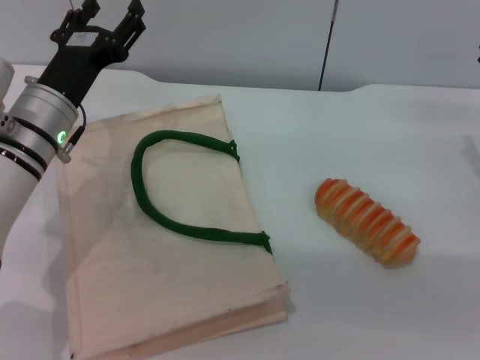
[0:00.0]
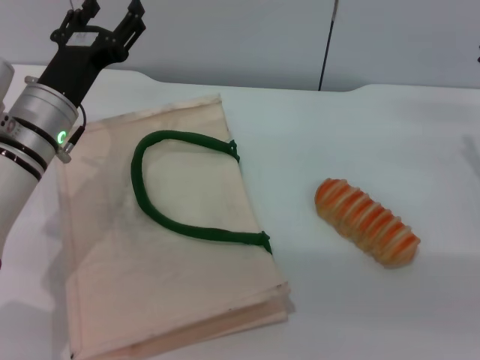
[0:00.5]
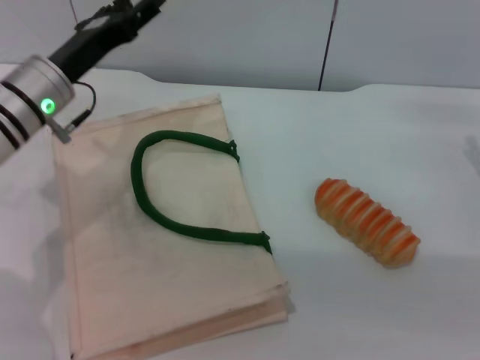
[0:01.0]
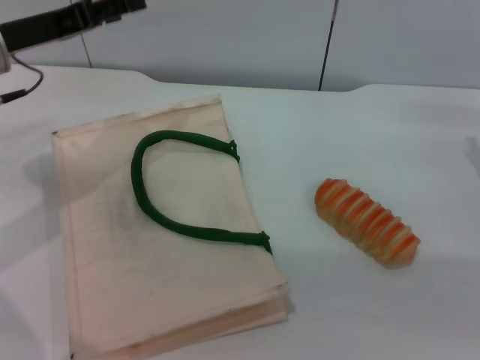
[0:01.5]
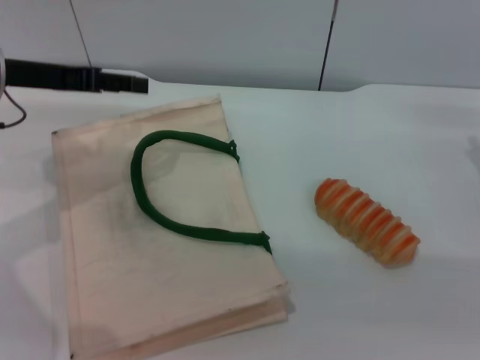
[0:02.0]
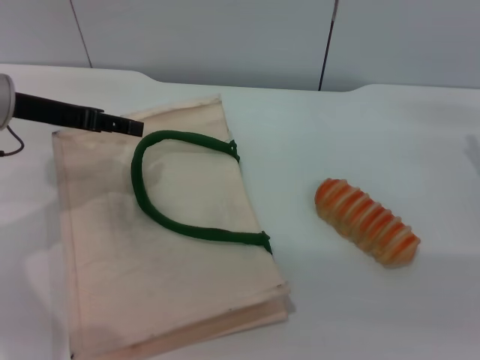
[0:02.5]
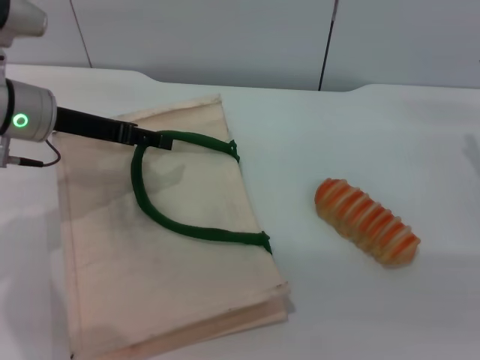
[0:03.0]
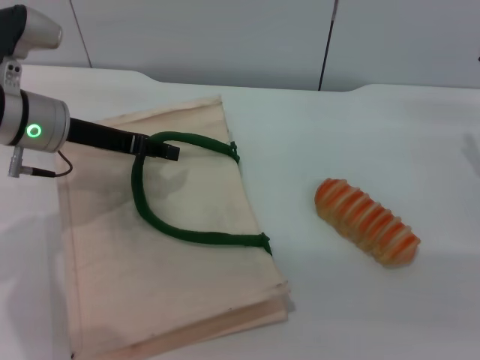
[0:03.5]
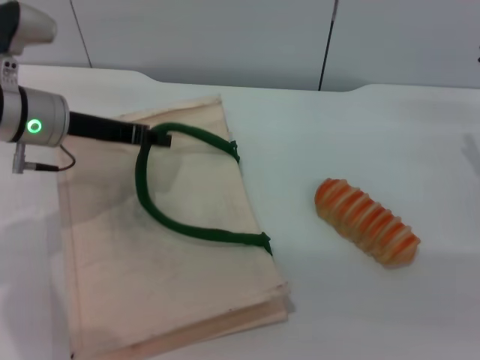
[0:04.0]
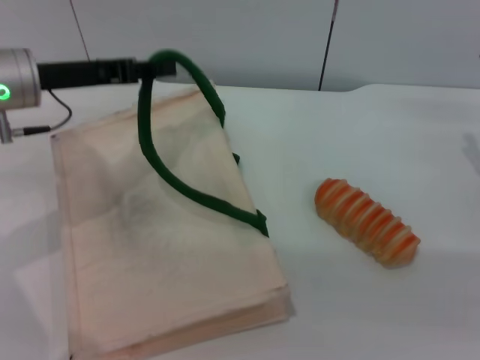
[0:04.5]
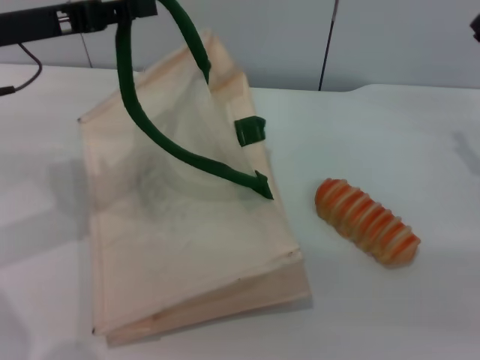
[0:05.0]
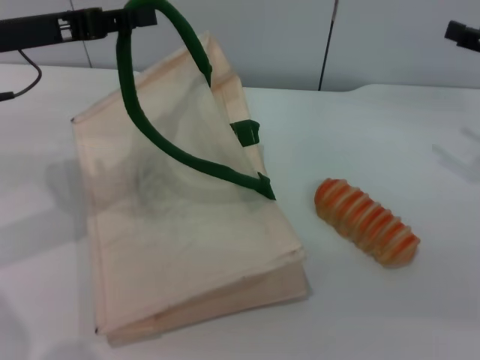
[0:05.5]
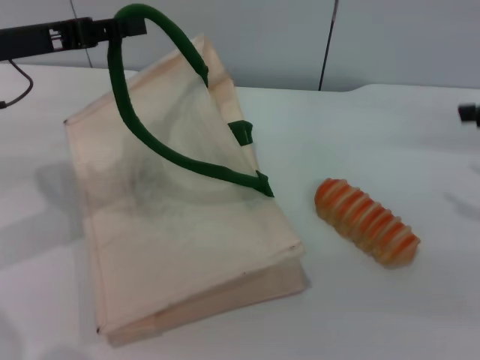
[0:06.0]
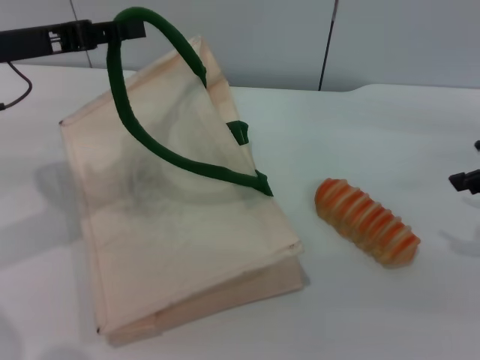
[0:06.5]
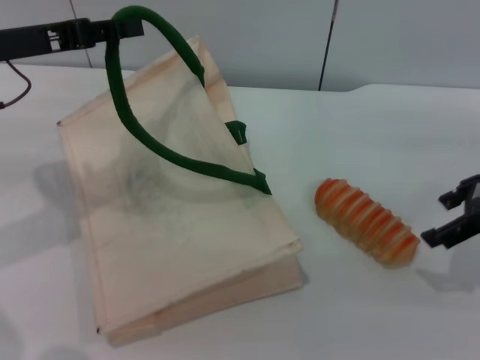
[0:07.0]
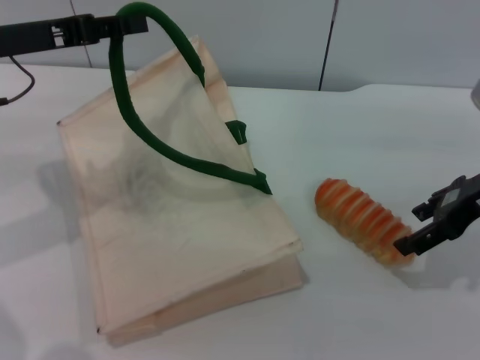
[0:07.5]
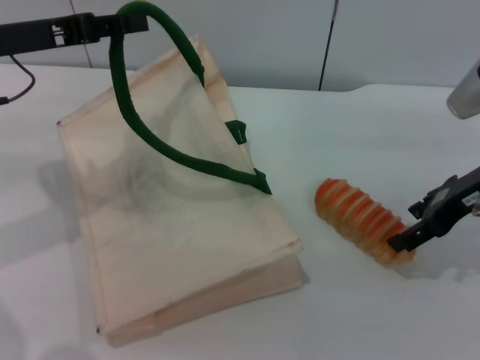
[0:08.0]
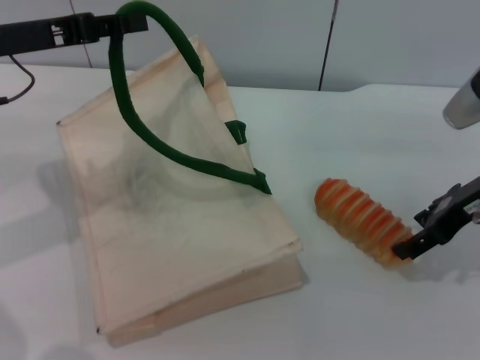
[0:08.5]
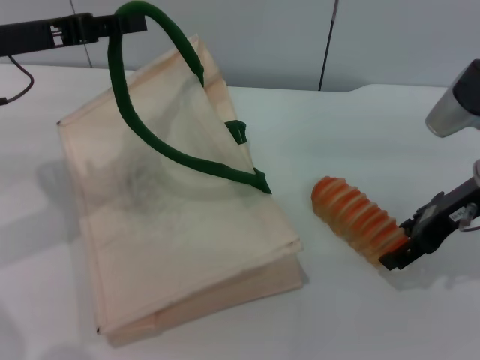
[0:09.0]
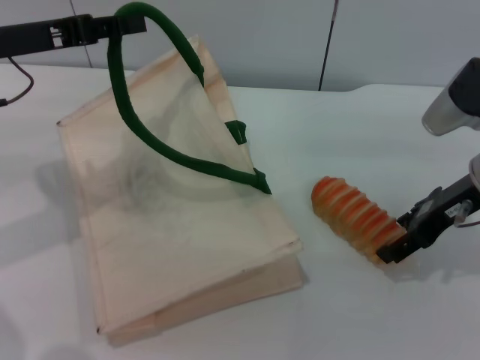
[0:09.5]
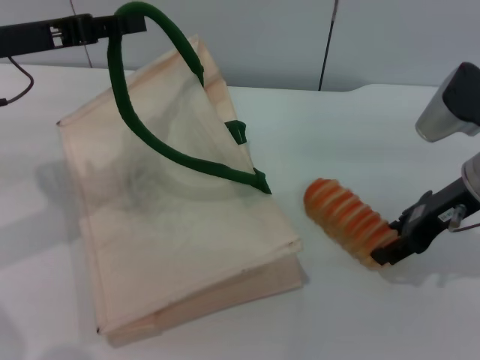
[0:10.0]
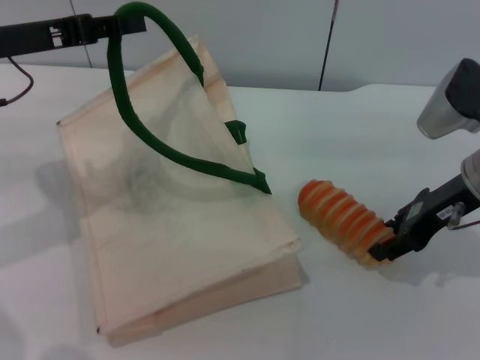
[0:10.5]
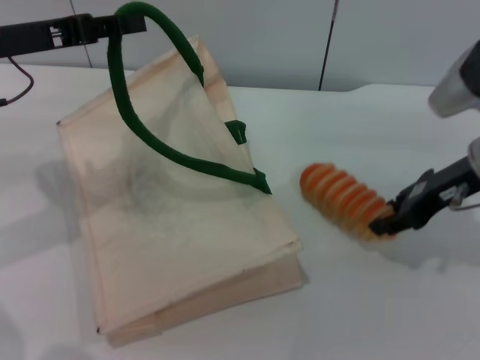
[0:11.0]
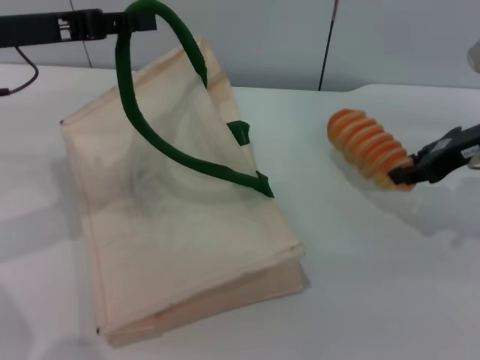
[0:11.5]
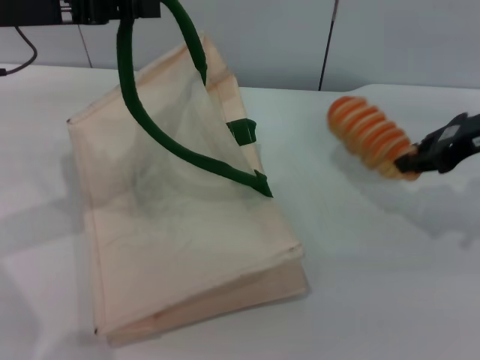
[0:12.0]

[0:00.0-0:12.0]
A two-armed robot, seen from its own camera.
Task of the whole recording: pick up the bread from the table and place it in the white handbag.
Step, 0:00.0 to 0:05.0: Lift the woven bag with the left gripper to open it.
Step, 0:05.5 to 0:11.0: Pick up the bread with the right gripper.
0:00.0 to 0:02.0: The left gripper shifts roughly 10 cm upward and to the left.
0:02.0 to 0:04.0: The left gripper goes about 5 cm downward, and closes.
0:04.0 to 0:06.0: The right gripper goes approximately 15 cm upward. Meanwhile the left gripper travels upward by approximately 5 cm.
0:06.0 to 0:08.0: The right gripper is displaced to the left and downward by roughly 10 cm.
0:08.0 to 0:10.0: The grippers stay close to where they were, moving slightly.
0:10.0 to 0:12.0: The right gripper moves roughly 5 cm, and closes its fingers.

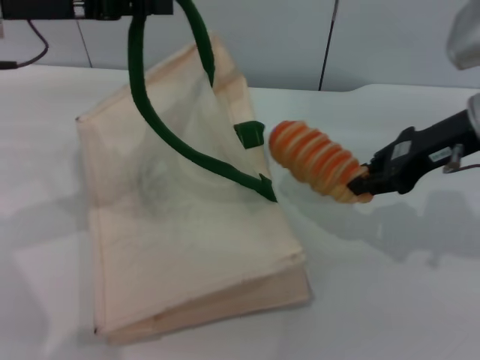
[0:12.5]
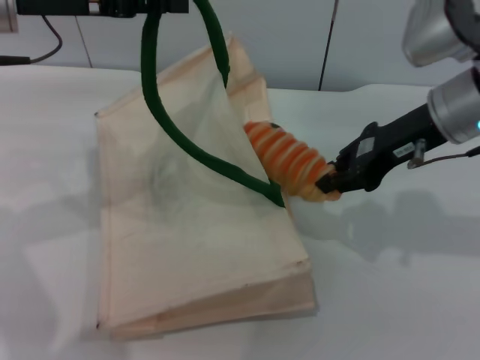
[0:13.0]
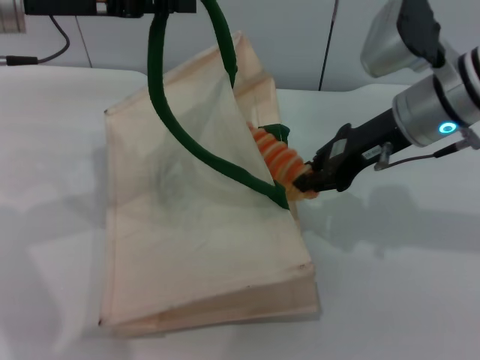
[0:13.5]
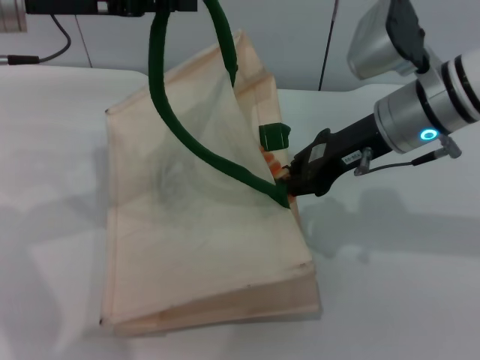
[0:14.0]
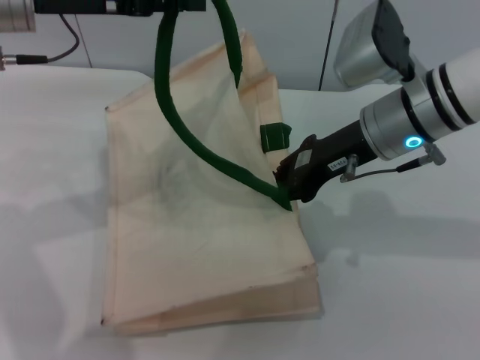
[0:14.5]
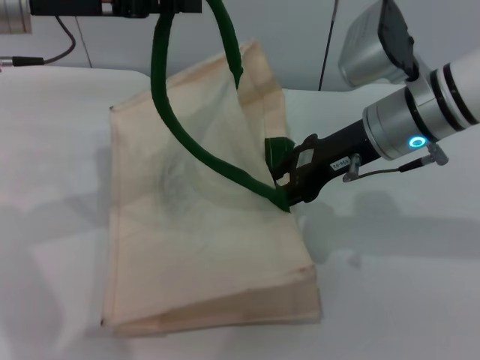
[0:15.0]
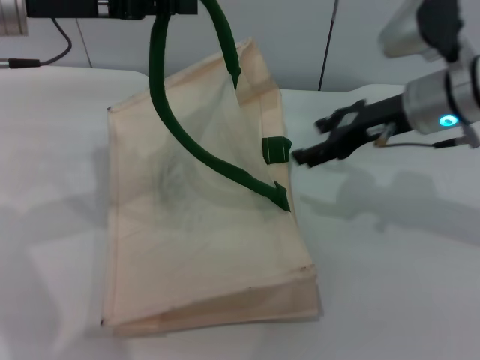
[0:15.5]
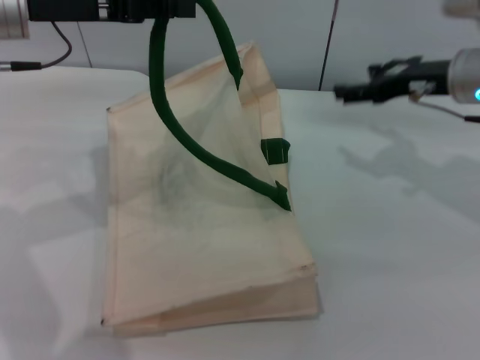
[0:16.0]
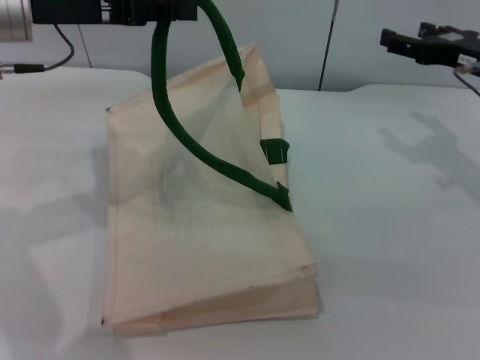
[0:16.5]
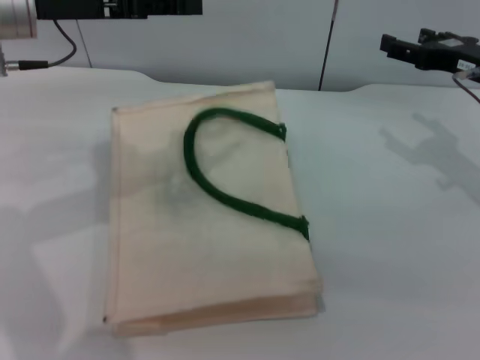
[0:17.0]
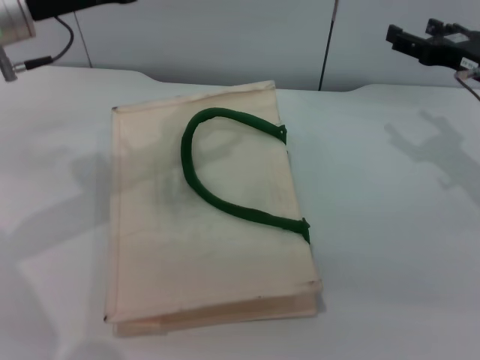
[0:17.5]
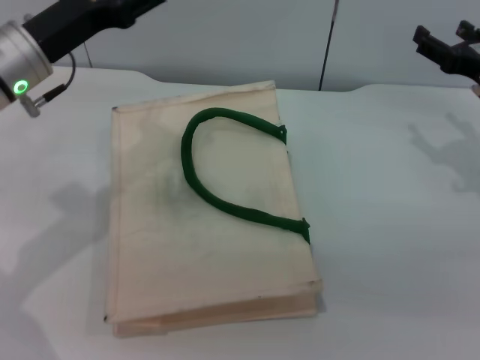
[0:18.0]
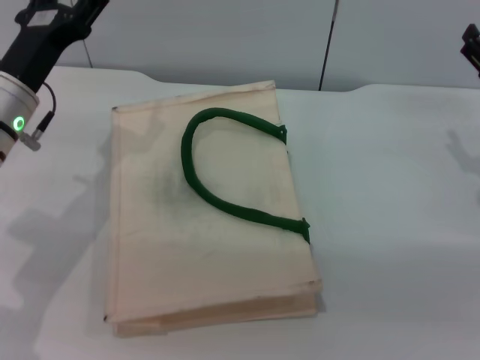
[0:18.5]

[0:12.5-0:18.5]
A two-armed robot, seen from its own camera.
Task of the whole recording: pick up the bread from the table and place it in the white handbag.
Step, 0:12.5 to 0:15.5: Place the bread into the woven bag with the right gripper.
0:12.5 to 0:14.5: The right gripper heads to the left, covering roughly 10 cm.
0:14.5 to 0:16.5: The right gripper heads to the right, covering approximately 15 cm, and opens up.
0:16.5 to 0:18.5: The right gripper heads downward and backward, covering about 10 cm; the left gripper heads downward, covering some 10 cm, and opens its fingers.

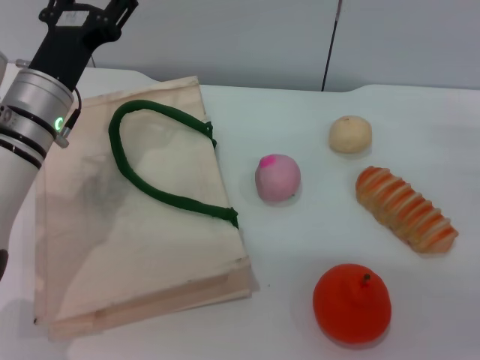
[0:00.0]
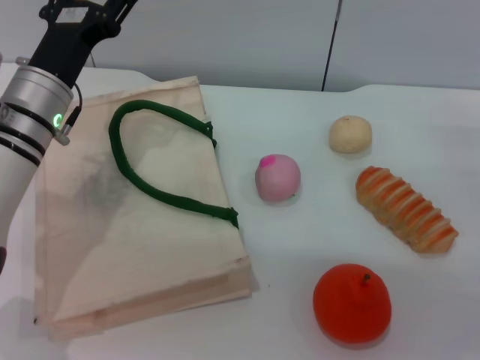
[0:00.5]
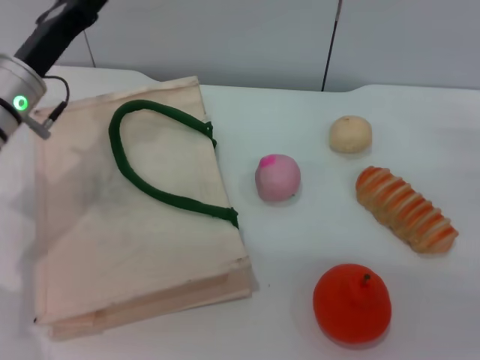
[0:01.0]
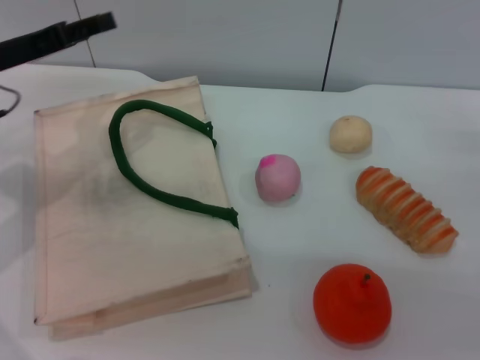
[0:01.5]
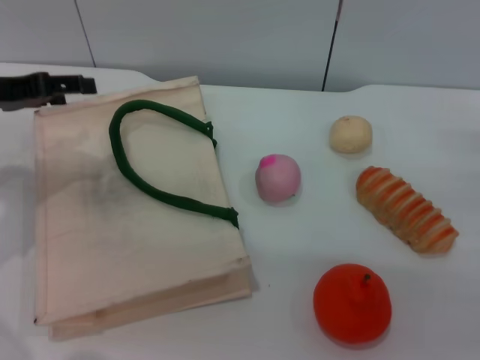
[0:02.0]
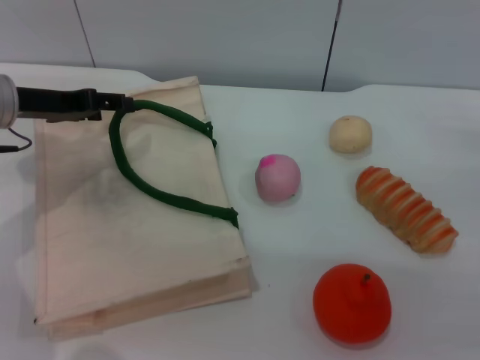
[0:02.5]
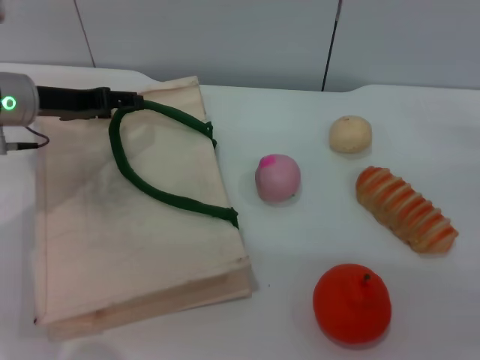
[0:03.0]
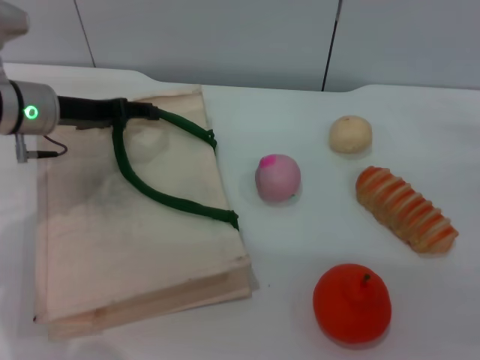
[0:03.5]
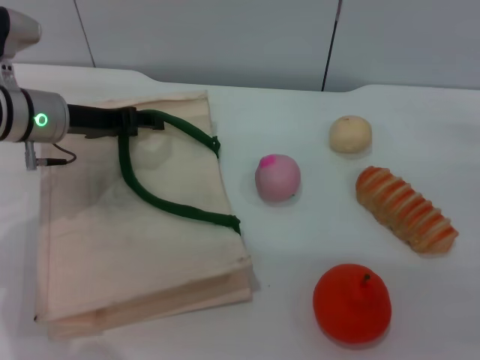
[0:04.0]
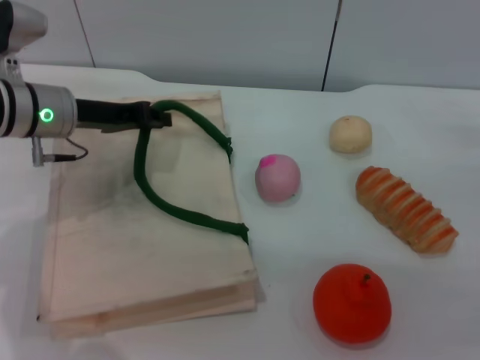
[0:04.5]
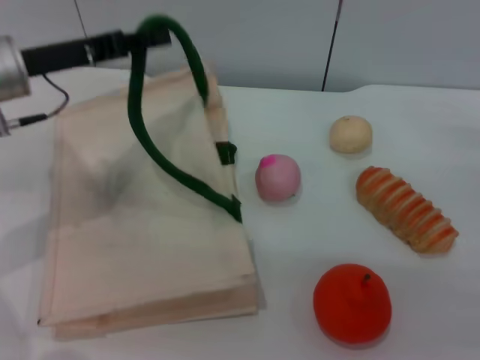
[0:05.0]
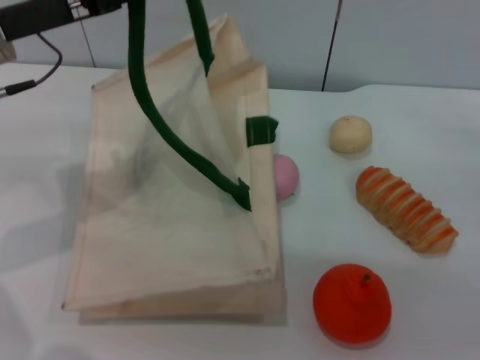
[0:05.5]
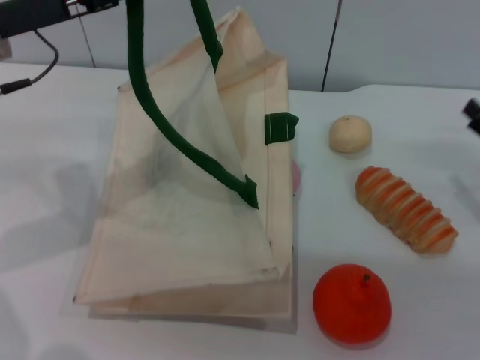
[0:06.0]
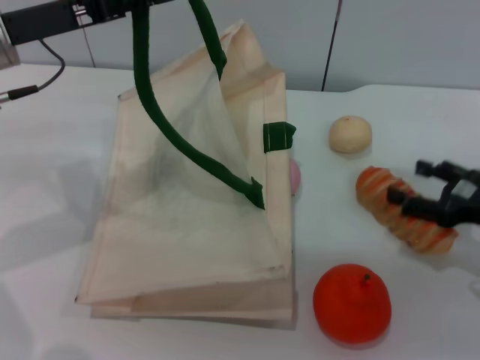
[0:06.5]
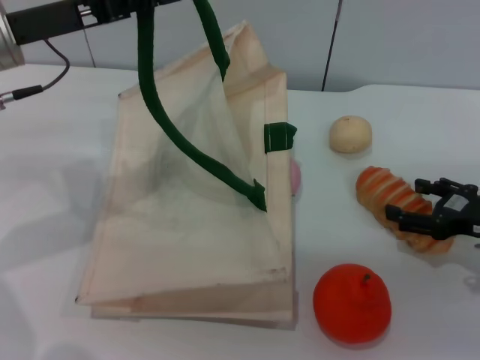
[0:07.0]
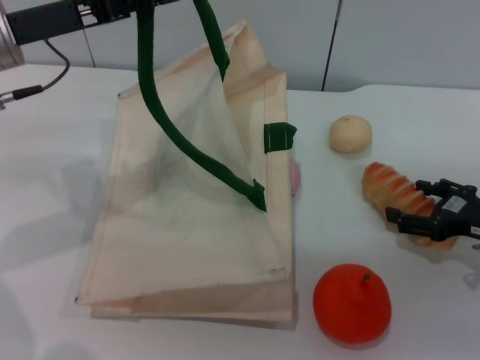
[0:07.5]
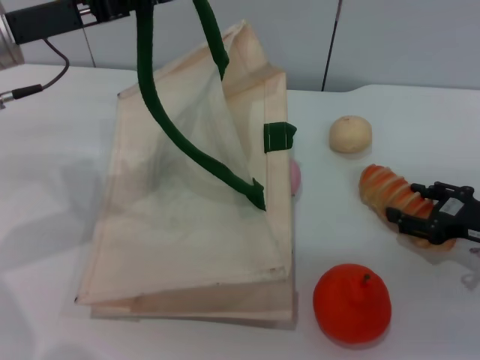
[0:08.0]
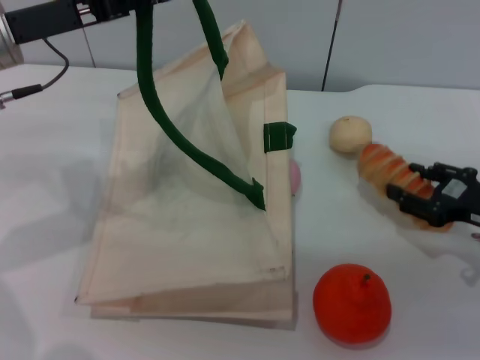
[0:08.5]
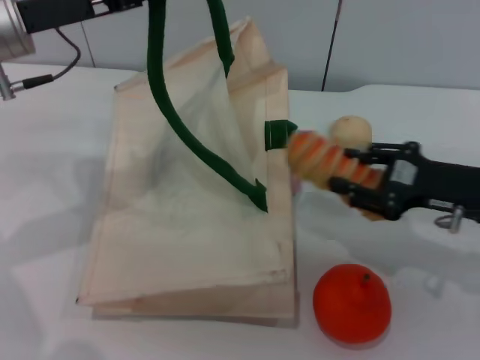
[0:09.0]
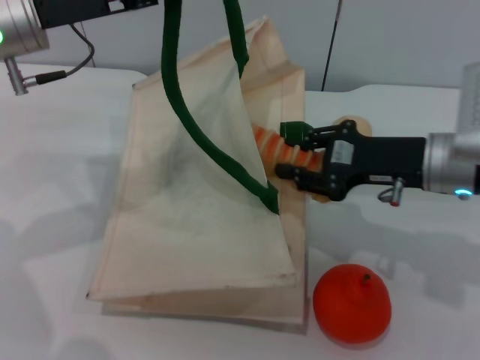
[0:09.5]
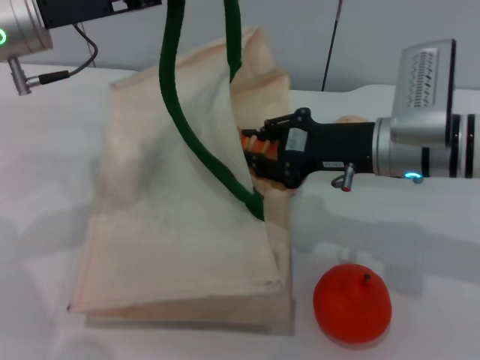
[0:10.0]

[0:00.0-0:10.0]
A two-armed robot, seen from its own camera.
Task of the whole recording: pick up the bread from the table and place it in the white handbag.
Step, 0:00.0 to 0:05.0: Lift the woven bag with the left gripper to open it.
Step, 0:05.5 to 0:08.5: Pick up the bread with the right gripper.
0:00.0 to 0:02.0: The left gripper shifts approximately 15 cm to the left and upward.
0:02.0 to 0:04.0: The left gripper travels to the right and downward by some 10 cm.
0:04.0 to 0:06.0: The left gripper heads upward, covering some 10 cm, and closes.
0:08.0 to 0:10.0: The right gripper goes about 15 cm to the left and upward, and closes up.
